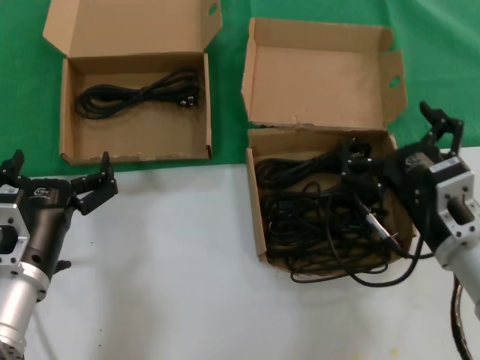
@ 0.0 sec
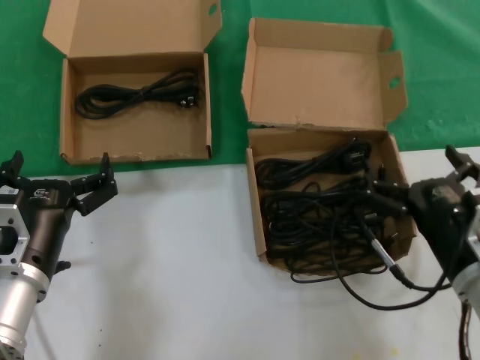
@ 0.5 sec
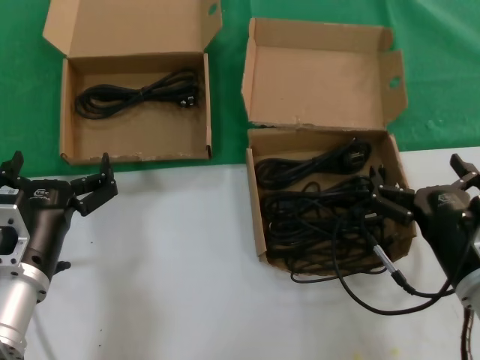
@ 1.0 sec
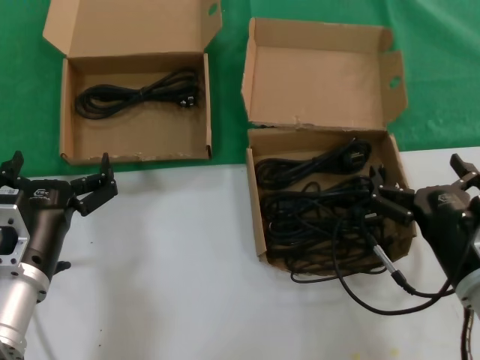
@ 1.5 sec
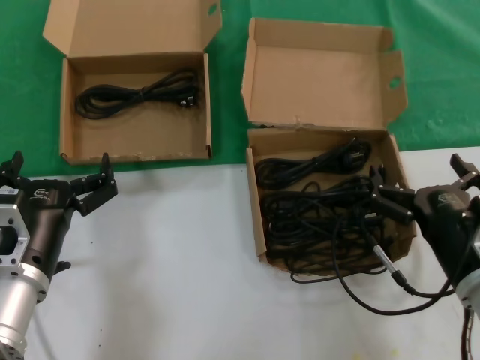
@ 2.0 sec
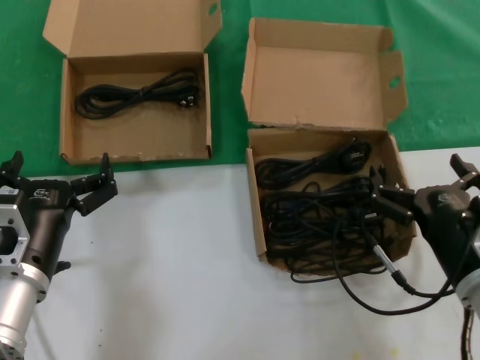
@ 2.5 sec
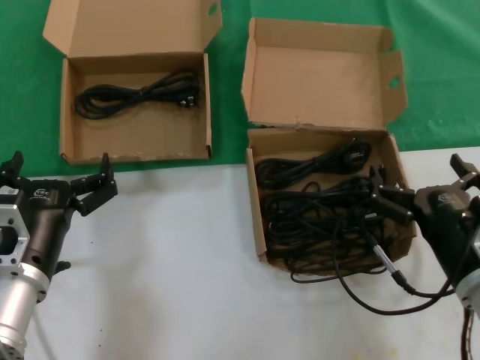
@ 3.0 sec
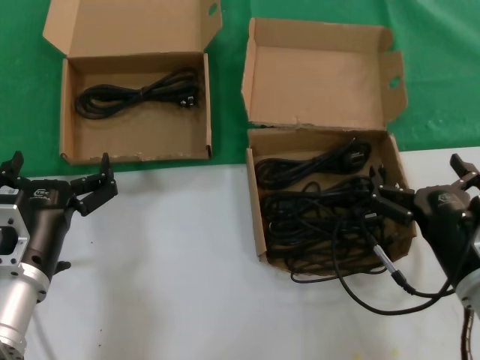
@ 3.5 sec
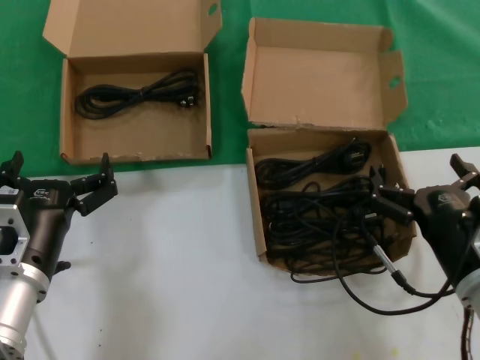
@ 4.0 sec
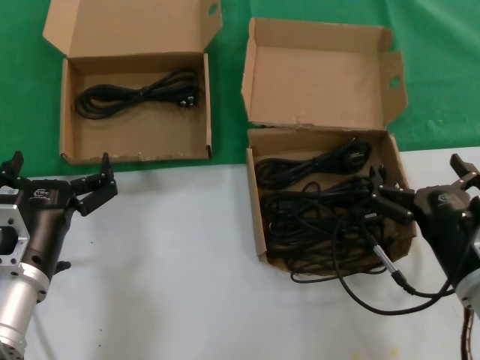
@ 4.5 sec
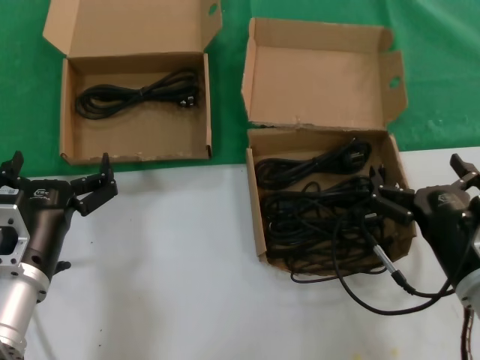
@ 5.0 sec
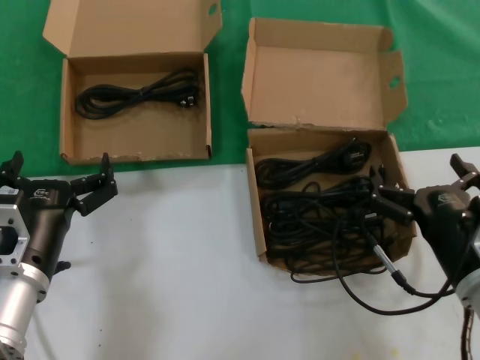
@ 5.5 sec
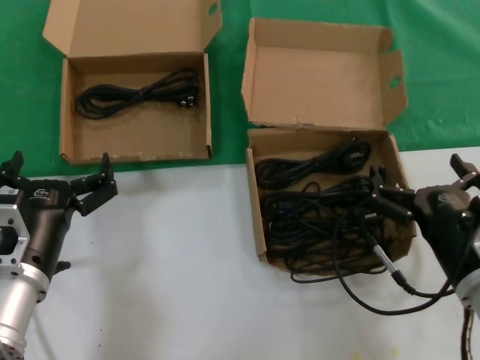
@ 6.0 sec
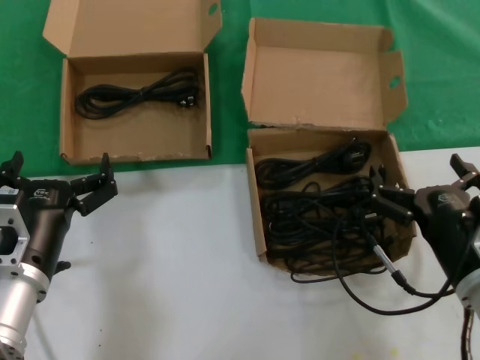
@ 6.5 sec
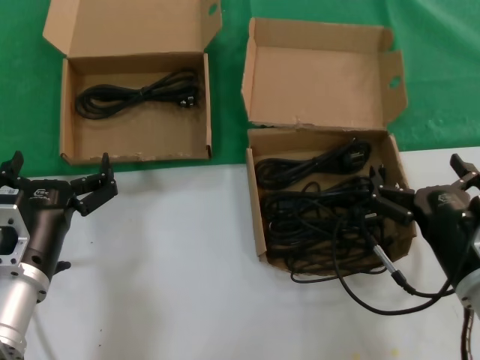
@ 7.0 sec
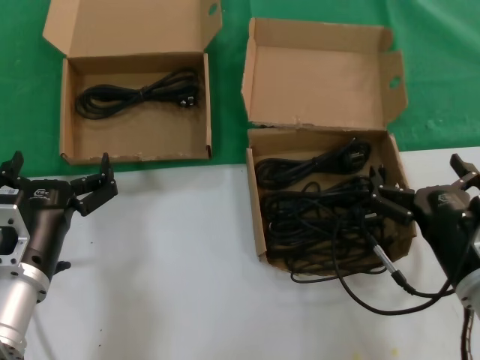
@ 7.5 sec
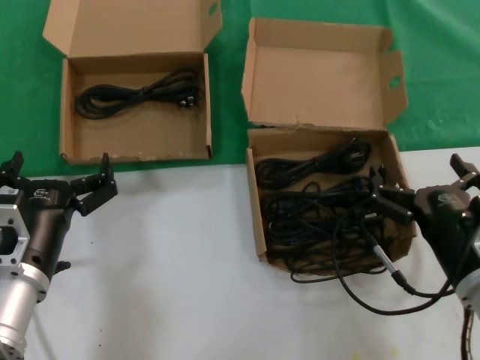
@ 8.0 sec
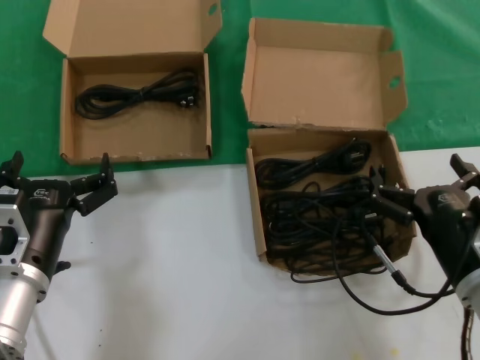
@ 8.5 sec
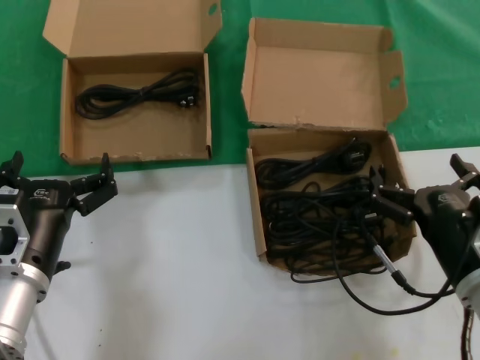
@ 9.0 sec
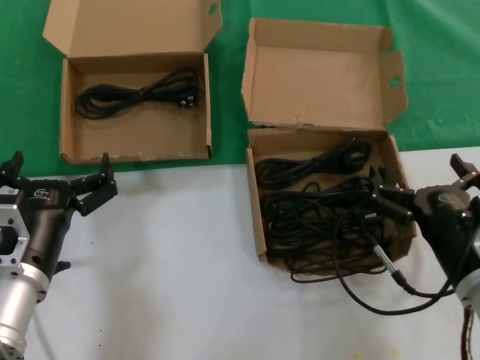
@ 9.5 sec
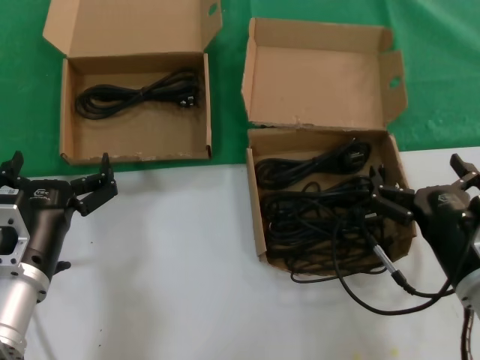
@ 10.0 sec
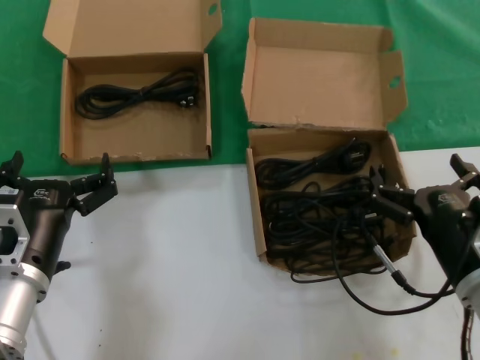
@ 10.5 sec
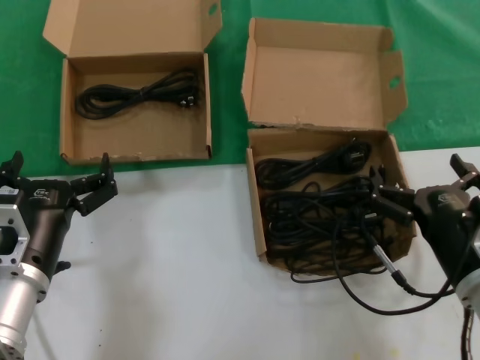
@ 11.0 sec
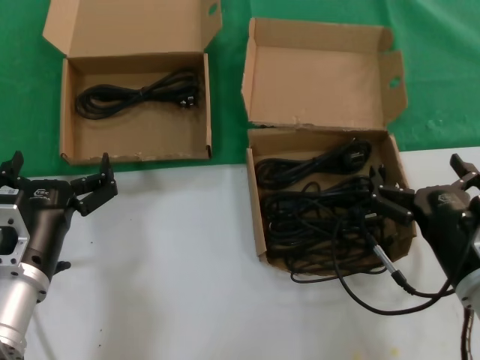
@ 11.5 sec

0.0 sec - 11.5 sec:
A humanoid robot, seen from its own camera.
Task of the whole recording: take the parts from the box containing them and put them into an empty box.
0.0 sec - 2.0 sec: The right hand shifts by about 5 cm.
2.0 sec - 11.5 sec: The two hands keep their place.

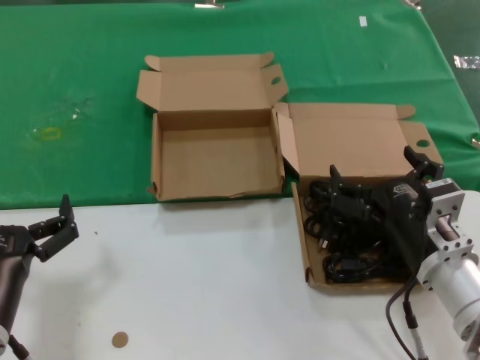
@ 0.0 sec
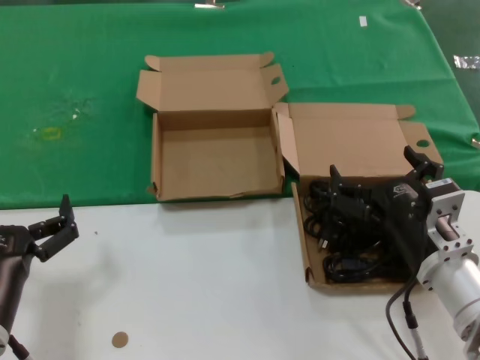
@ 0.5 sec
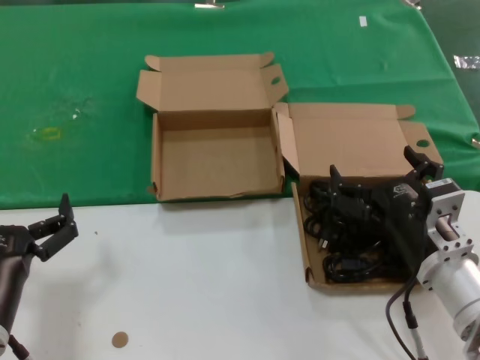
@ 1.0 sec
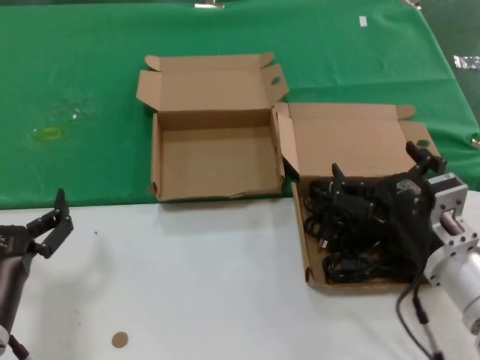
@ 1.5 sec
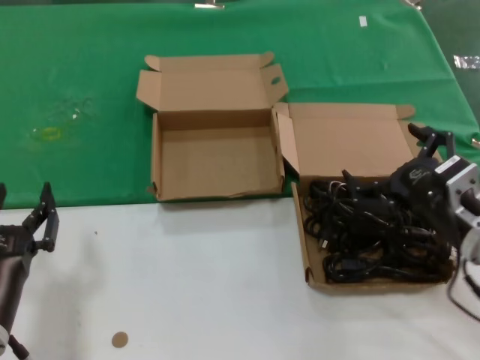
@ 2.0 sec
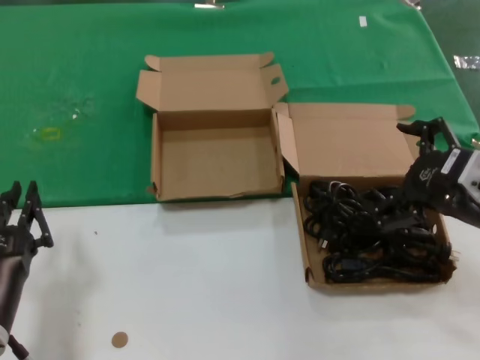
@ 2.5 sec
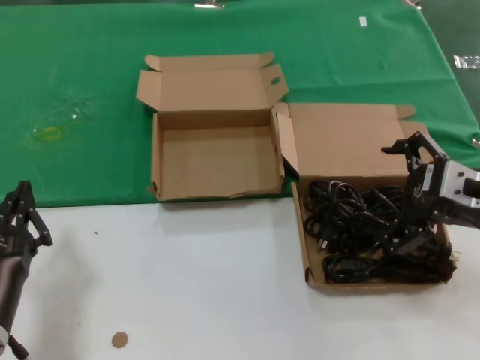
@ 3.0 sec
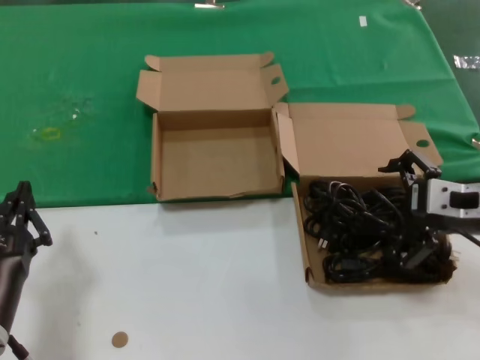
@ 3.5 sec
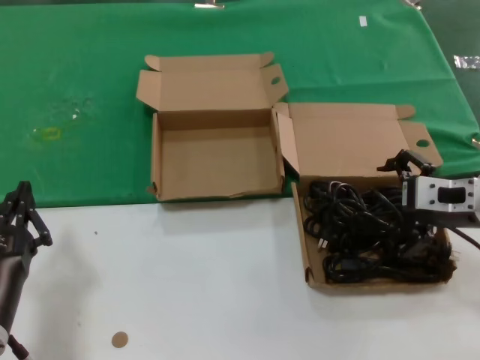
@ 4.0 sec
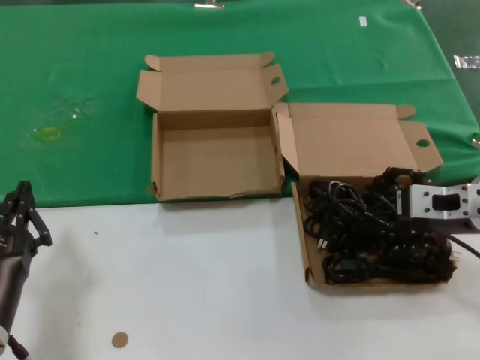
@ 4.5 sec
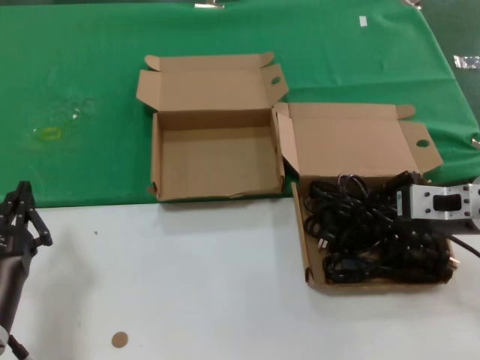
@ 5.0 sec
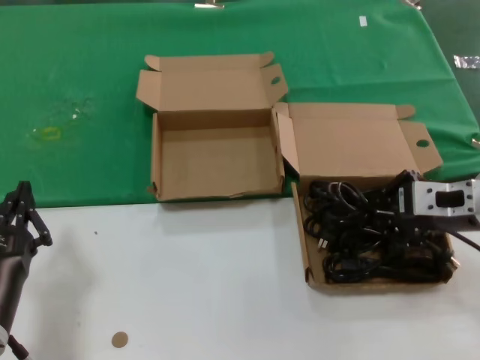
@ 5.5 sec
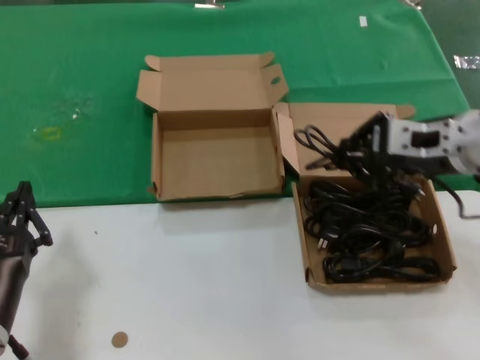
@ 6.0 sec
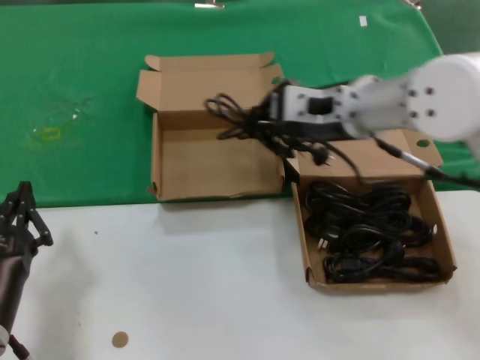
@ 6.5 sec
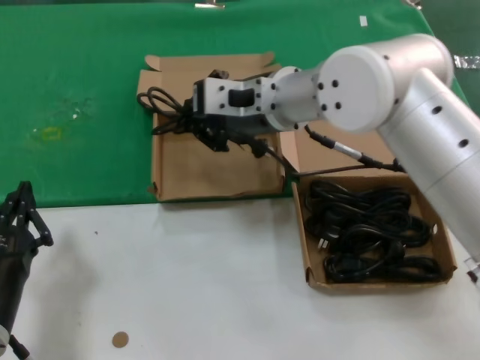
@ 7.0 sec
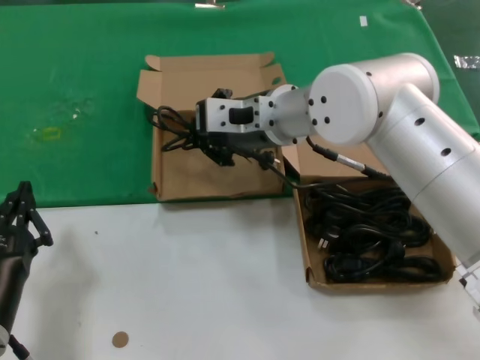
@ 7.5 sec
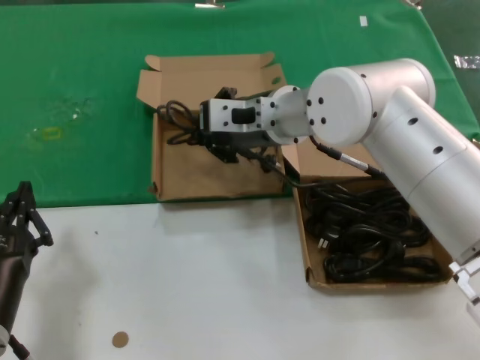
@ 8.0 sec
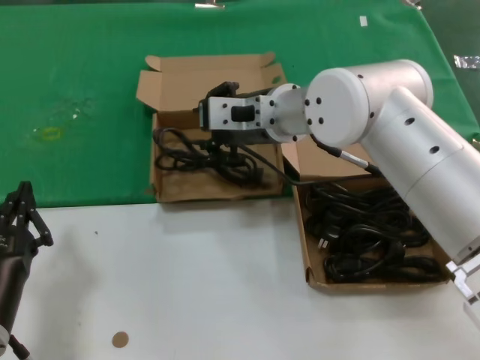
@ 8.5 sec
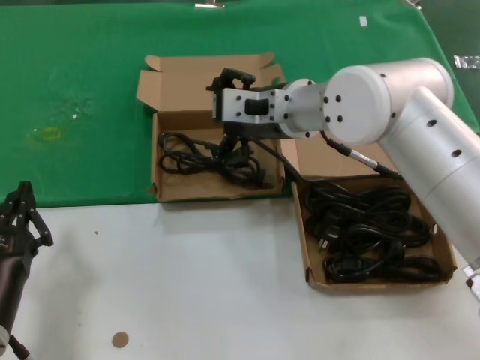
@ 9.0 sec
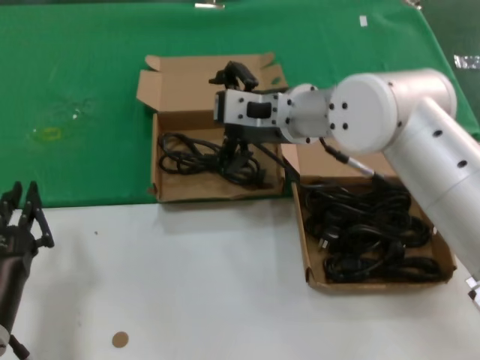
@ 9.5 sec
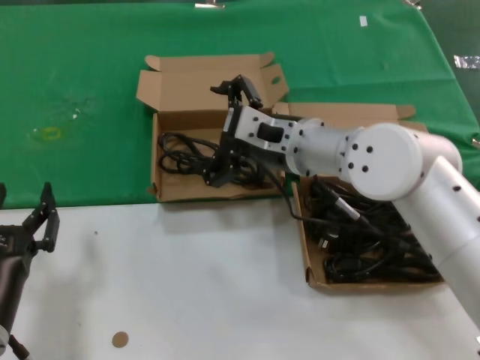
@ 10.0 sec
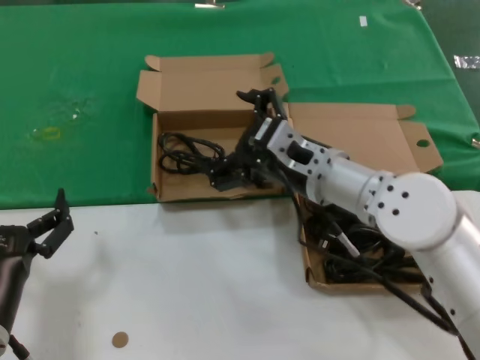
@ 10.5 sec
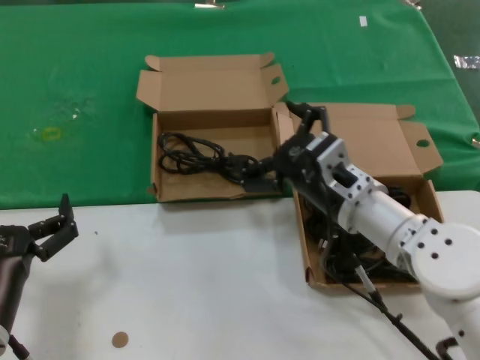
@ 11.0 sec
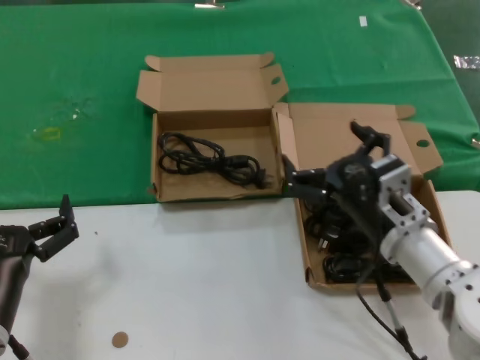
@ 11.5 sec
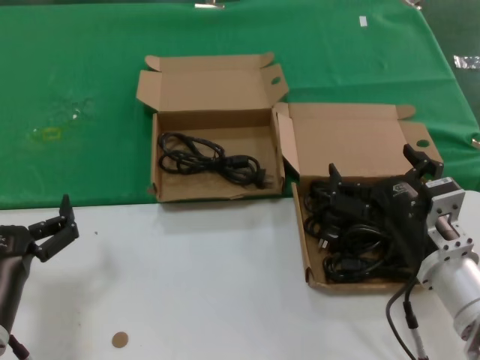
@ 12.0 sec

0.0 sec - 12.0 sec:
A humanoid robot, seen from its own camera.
Task of the whole recording: take the parts from the box containing them and put them into an empty box.
Step, 0.0 sec - 5.0 sec: Grasp the data cable.
Step, 5.5 sec - 8.5 sec: Place the data cable in the another box.
0.0 sec - 2.0 sec: The right hand travels to the right by some 5 cm.
2.0 sec - 4.0 sec: The right hand shifts about 10 cm upward and forward.
4.0 sec - 6.0 sec: The right hand heads upward, covering some 5 cm.
6.0 sec - 8.0 sec: The right hand moves to the left and forward, some 20 cm.
8.0 sec - 10.0 sec: The right hand moves some 5 cm.
10.0 sec - 12.0 sec: The right hand moves backward, downward and to the right, roughly 25 cm.

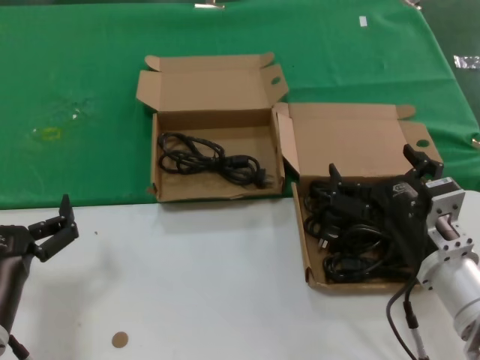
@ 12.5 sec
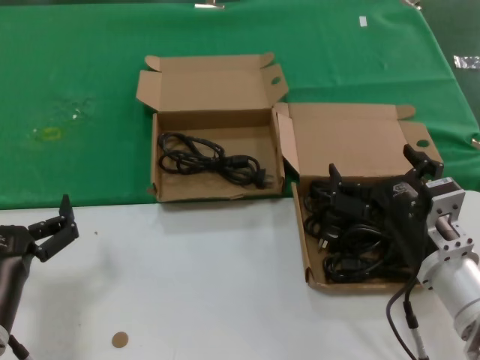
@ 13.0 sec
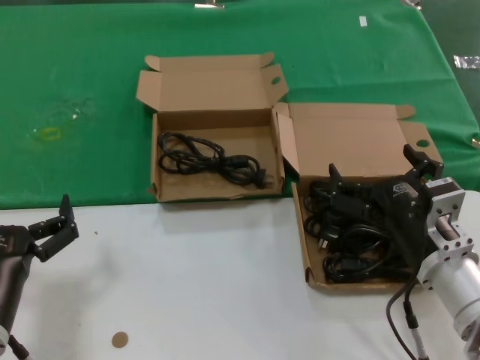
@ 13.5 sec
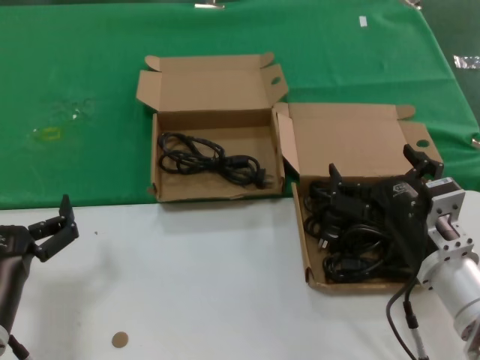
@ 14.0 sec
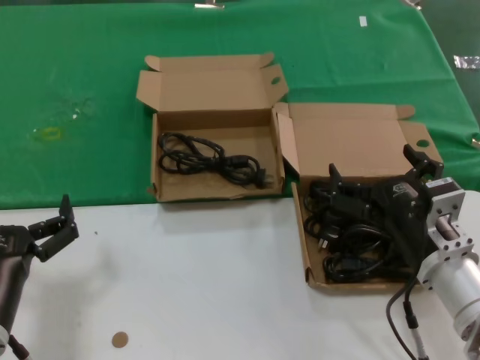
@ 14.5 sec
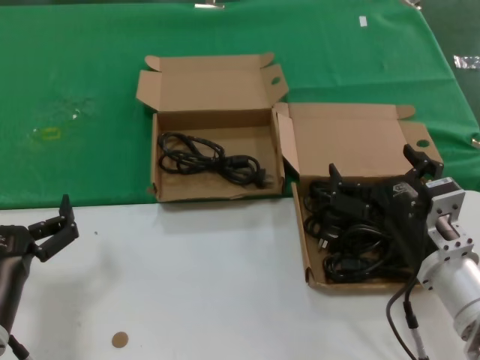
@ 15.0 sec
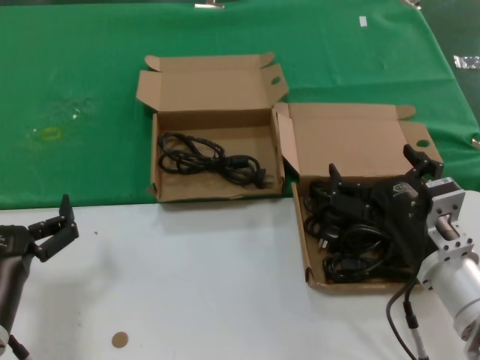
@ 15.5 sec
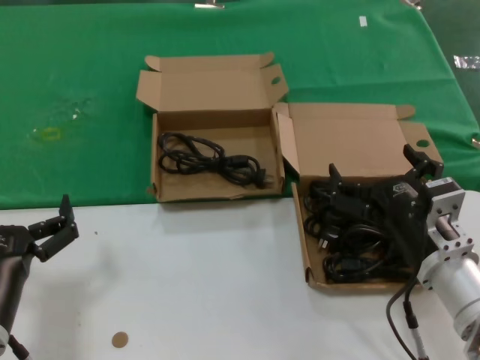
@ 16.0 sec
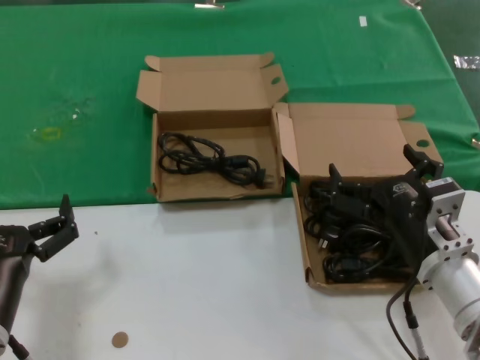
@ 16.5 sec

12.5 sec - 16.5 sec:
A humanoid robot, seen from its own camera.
Task of the whole recording: take the parts from the box containing them and put them into an empty box.
12.5 sec - 16.5 sec: The two hands keep their place.
